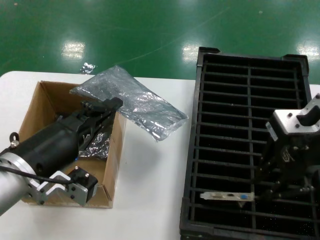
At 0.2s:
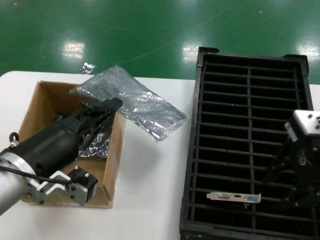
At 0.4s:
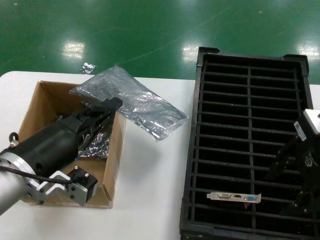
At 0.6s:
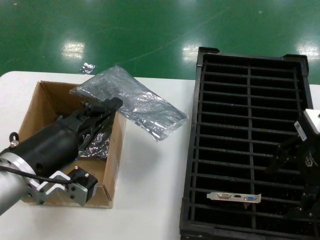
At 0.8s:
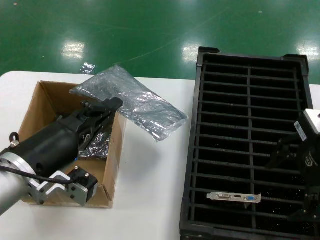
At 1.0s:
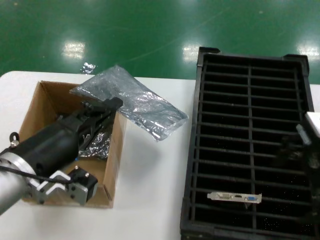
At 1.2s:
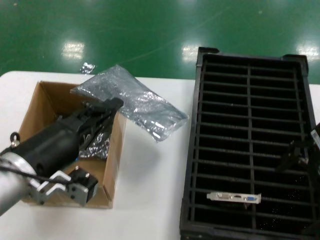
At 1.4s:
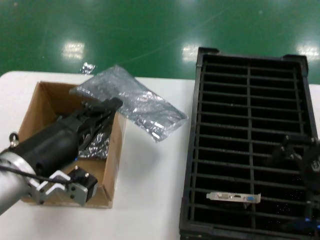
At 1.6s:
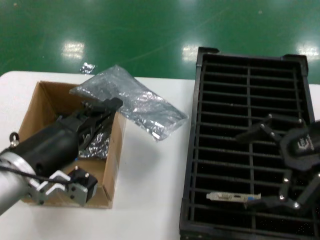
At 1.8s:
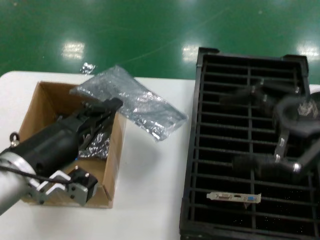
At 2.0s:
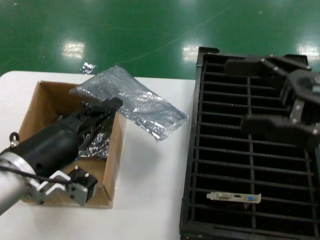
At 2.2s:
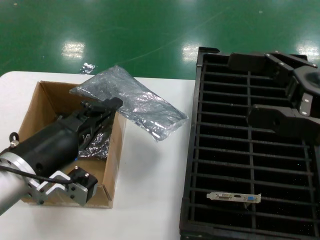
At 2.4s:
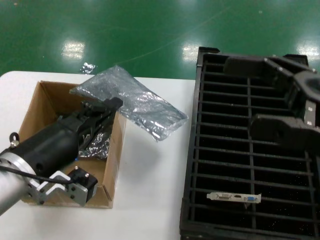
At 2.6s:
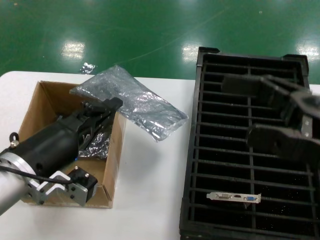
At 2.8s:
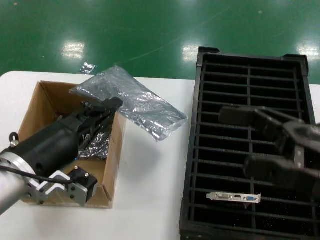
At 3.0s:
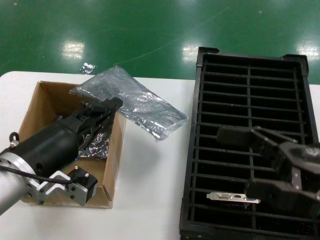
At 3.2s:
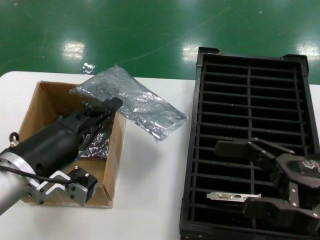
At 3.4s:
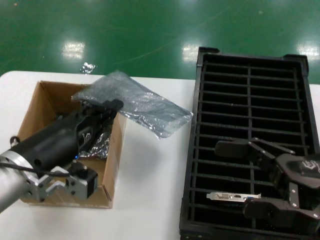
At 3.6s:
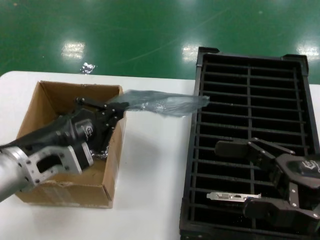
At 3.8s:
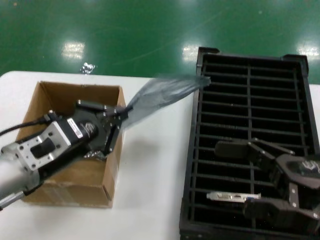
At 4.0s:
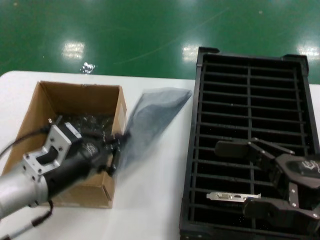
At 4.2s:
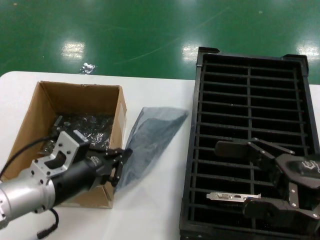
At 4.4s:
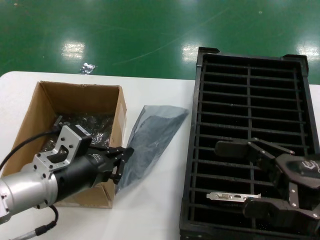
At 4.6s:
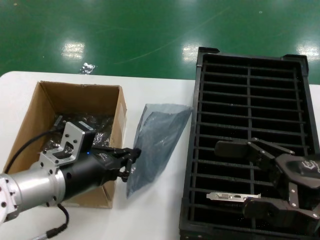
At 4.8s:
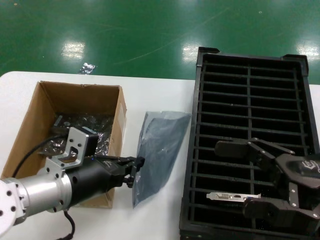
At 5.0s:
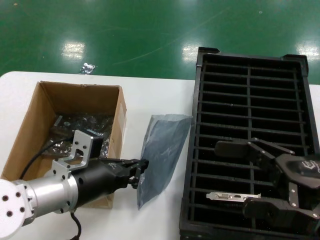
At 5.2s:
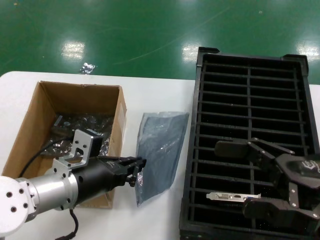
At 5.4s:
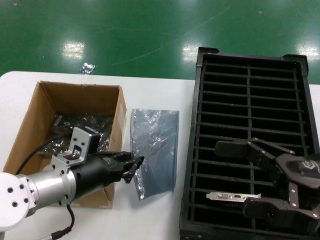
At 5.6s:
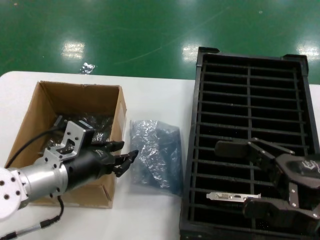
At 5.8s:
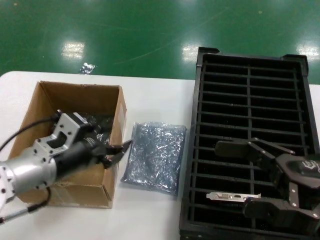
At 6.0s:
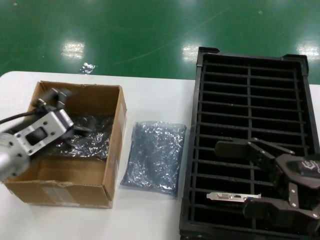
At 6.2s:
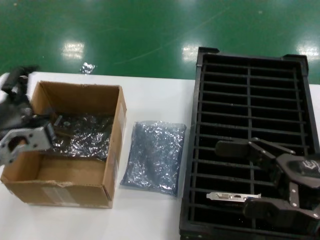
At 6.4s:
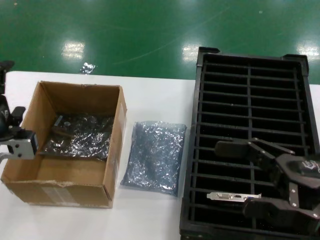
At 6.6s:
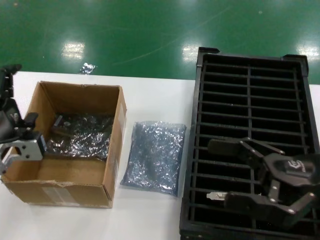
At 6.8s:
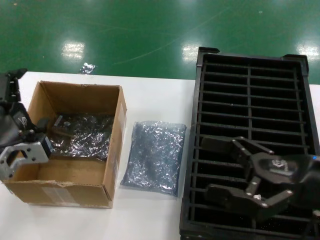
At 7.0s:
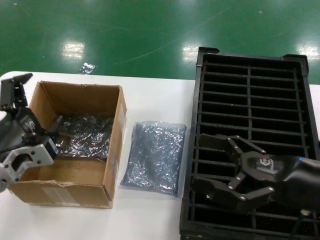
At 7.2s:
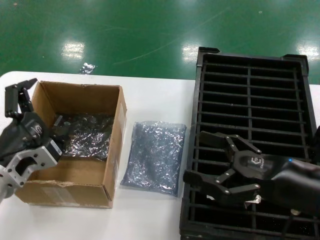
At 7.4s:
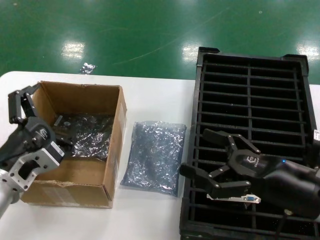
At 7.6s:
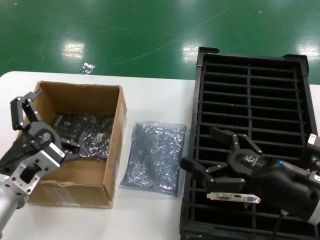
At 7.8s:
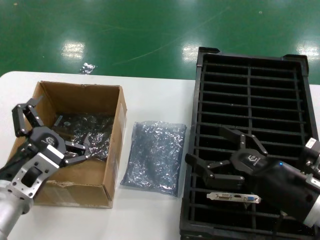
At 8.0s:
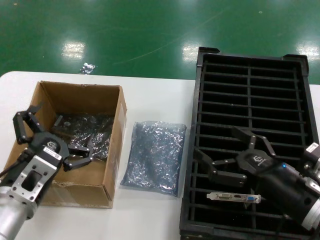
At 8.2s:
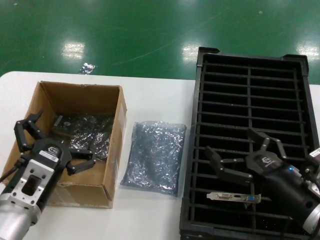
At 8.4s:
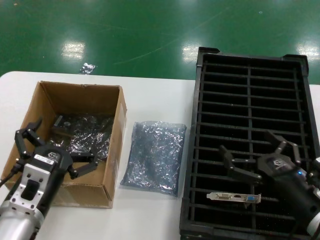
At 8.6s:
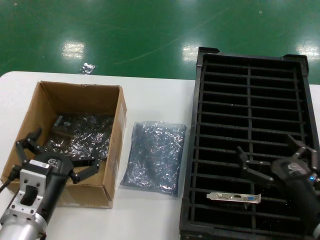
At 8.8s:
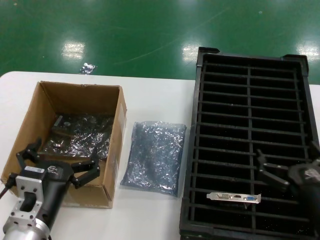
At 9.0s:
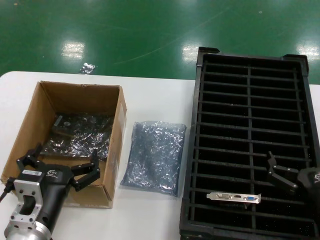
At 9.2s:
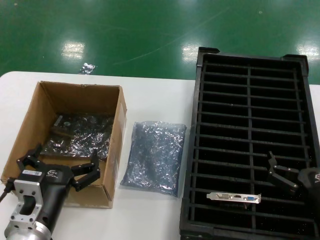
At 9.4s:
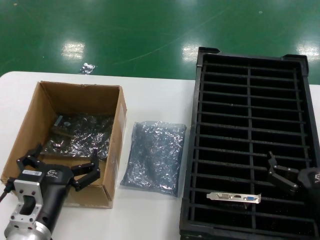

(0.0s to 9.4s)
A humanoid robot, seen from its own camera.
Task of the whole recording: take out graphics card from box remove packaging put into black container.
Step, 0.2s - 5.4s: Place the down the bag.
0.0s - 1.6s: The right hand goes approximately 10 cm to the right.
1.6s - 3.2s: The right hand shifts about 15 cm downward.
4.8s - 6.2s: The left hand heads to the left, covering some 5 cm.
6.2s - 7.8s: The right hand heads downward and to the left, covering about 10 cm. The left hand shifts approximately 10 cm downward.
7.8s - 9.4s: The right hand is displaced backward and downward by some 10 cm, while the left hand heads downward, covering about 5 cm.

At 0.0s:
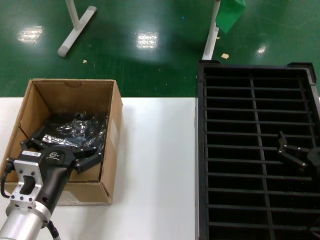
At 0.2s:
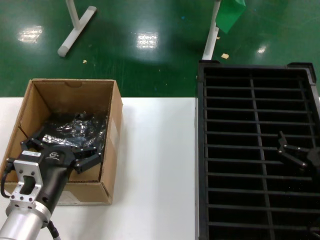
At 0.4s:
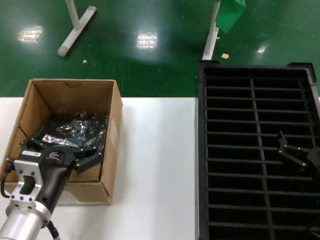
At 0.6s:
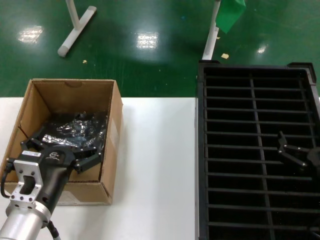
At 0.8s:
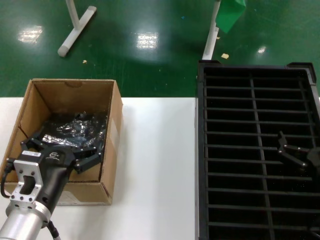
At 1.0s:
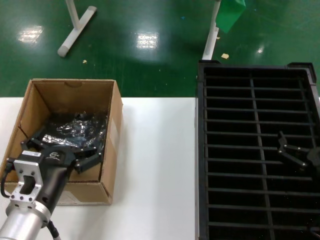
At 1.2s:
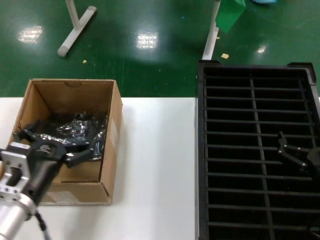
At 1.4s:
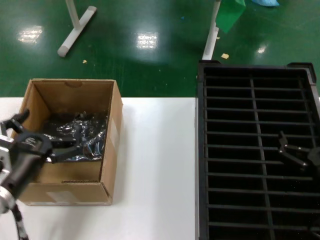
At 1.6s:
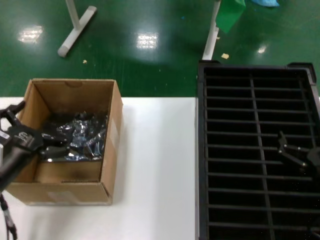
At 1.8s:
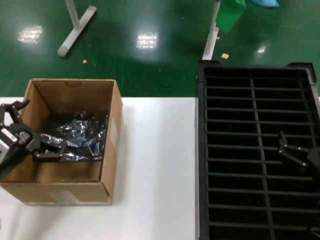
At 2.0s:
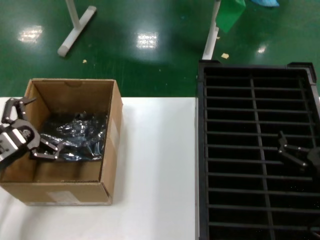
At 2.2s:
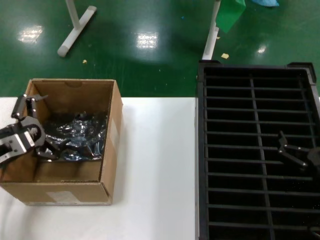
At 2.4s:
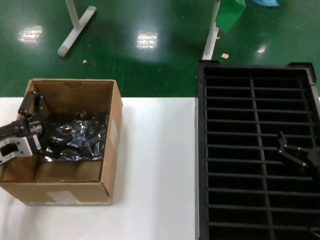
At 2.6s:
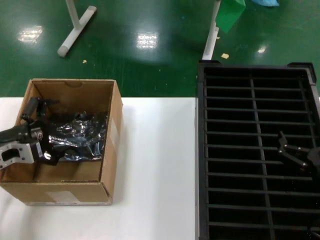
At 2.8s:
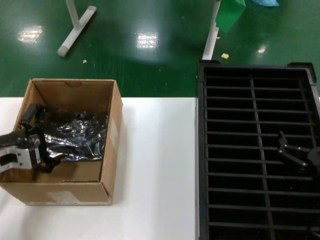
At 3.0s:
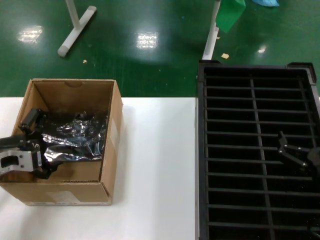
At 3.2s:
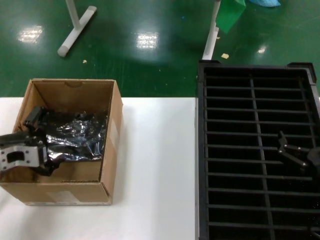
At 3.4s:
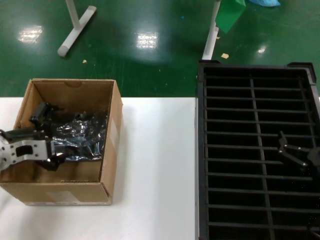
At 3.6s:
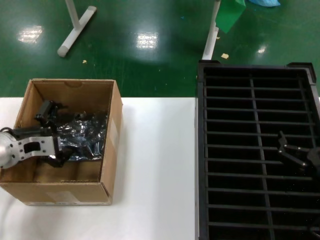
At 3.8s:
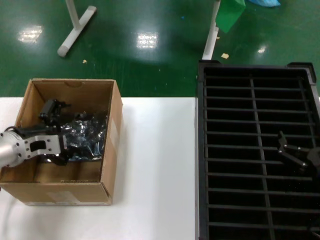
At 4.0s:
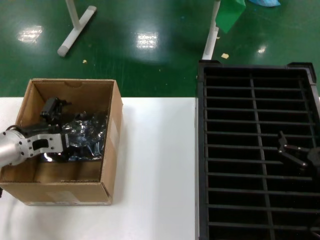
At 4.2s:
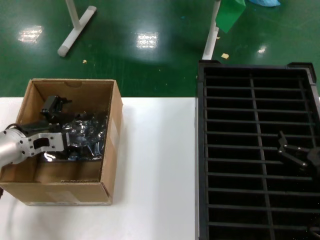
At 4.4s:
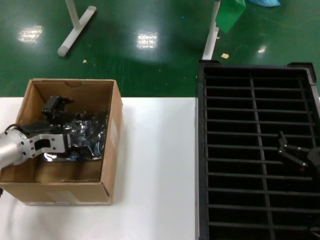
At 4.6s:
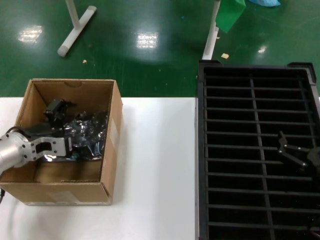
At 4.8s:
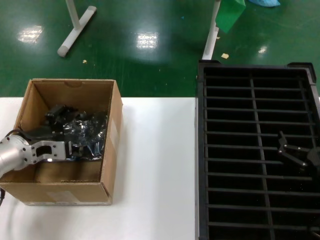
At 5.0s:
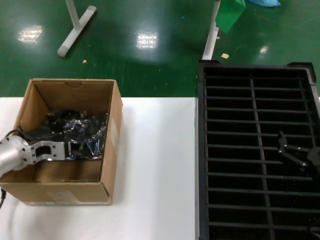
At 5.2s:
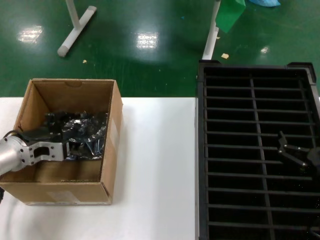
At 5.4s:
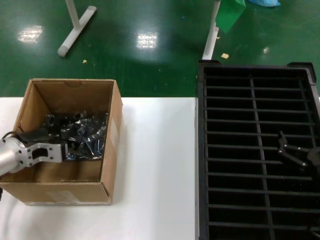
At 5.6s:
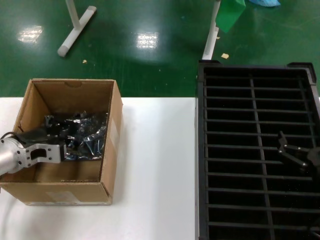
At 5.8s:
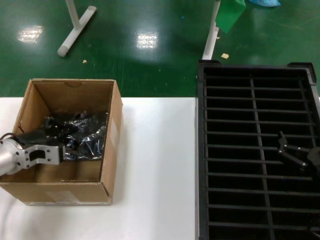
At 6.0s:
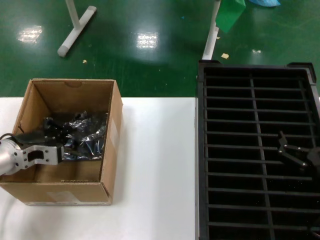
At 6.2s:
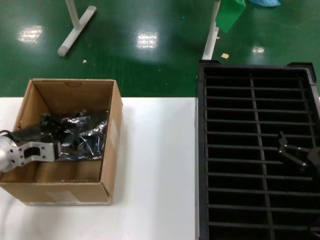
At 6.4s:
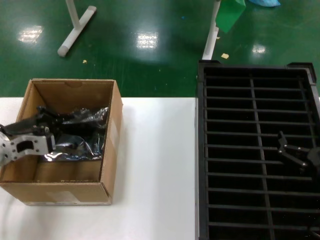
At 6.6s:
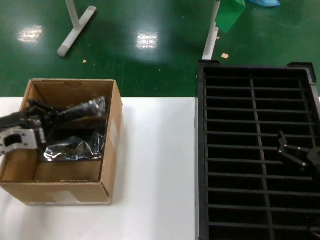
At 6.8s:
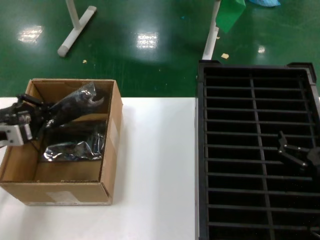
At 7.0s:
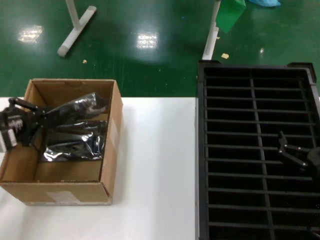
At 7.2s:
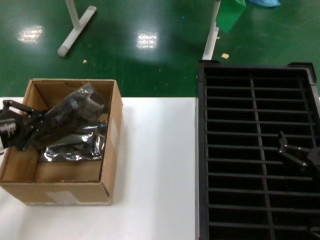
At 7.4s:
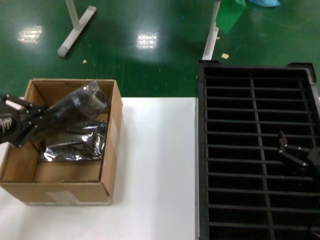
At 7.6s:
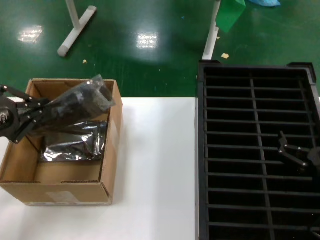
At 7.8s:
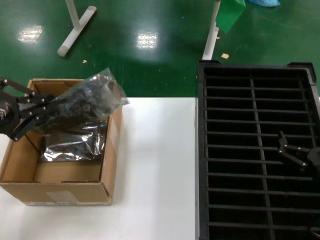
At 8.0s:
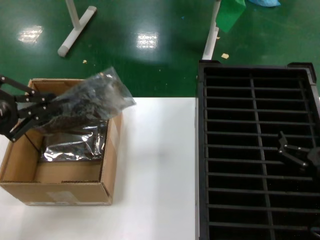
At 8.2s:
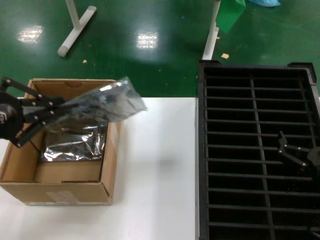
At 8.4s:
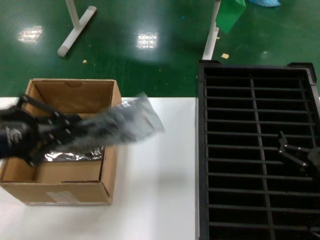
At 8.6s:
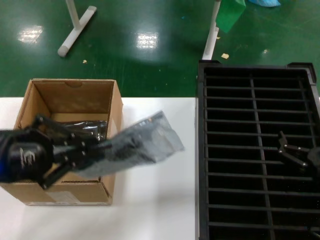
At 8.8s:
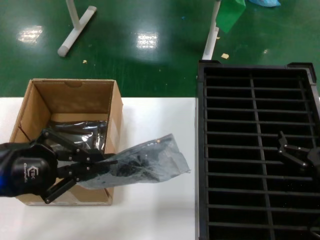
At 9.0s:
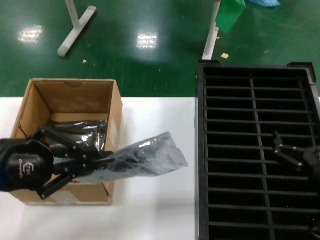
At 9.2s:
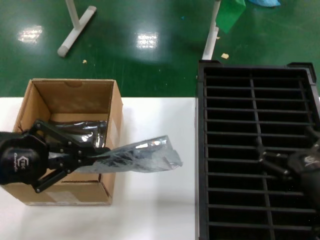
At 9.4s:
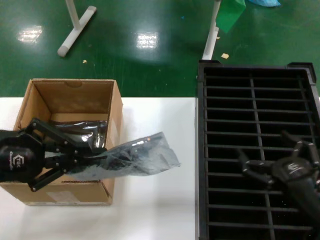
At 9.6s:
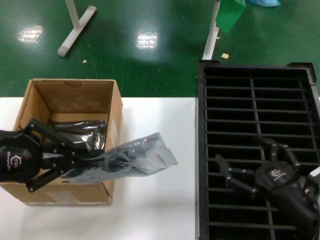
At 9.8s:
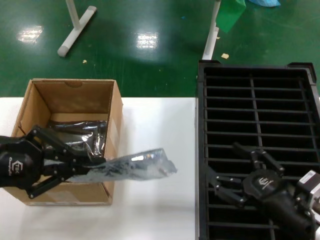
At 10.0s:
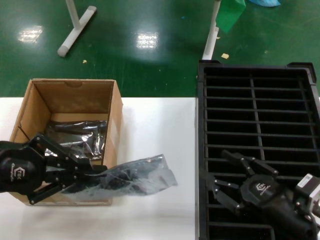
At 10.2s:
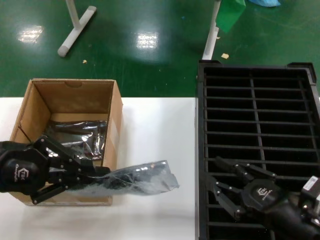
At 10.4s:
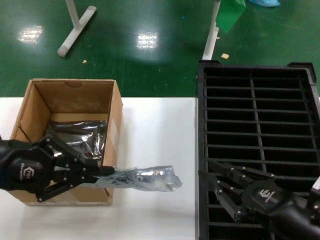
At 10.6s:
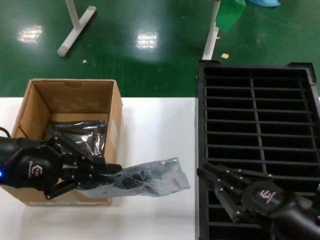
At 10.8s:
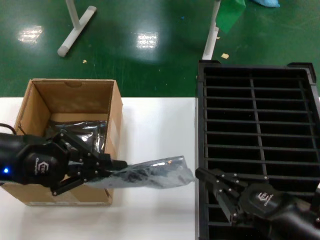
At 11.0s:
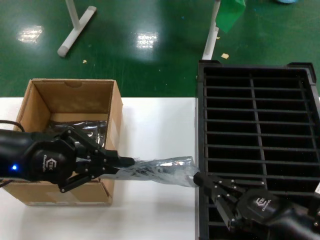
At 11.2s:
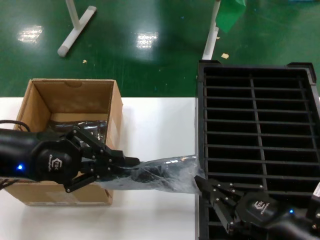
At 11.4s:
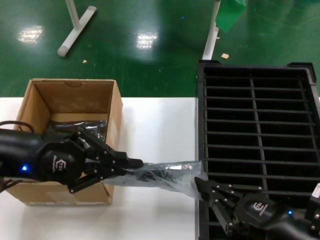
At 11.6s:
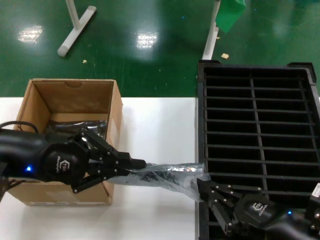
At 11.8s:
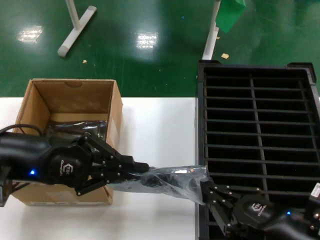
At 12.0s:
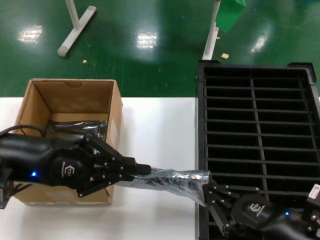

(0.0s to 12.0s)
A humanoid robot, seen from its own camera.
Task of the whole recording: take out graphics card from box remove packaging put into black container.
Step, 0.0s - 5.6s: Grasp the bag.
Step, 5.8s - 8.6s: Lift the bag.
0.0s - 1.6s: The left hand moves to the left, approximately 10 cm.
1.6s - 3.0s: The left hand travels forward by some 10 cm.
3.0s - 4.4s: The left hand shifts approximately 5 cm to the right.
4.4s - 6.0s: The hands move only a little.
6.0s - 7.6s: The left hand heads upward, backward and to the left, covering approximately 20 cm.
7.6s - 9.0s: The left hand ends up approximately 5 cm from where it was.
9.0s - 10.4s: The left hand travels forward by roughly 5 cm, while the right hand changes place by about 5 cm.
10.4s - 12.0s: The left hand heads to the right, covering some 5 cm.

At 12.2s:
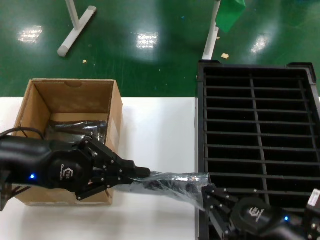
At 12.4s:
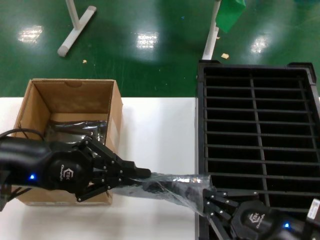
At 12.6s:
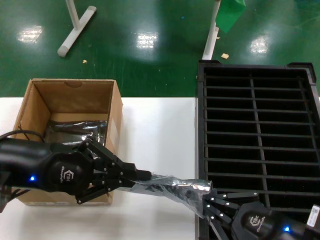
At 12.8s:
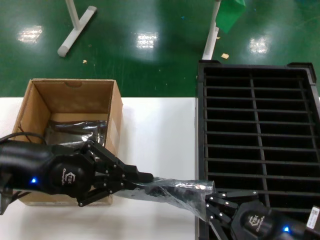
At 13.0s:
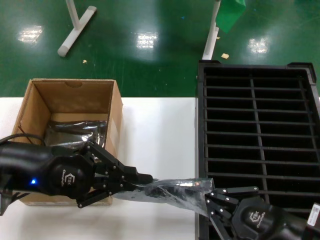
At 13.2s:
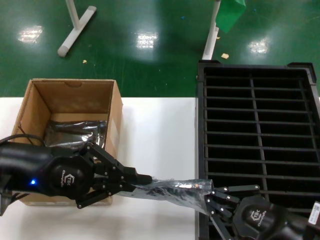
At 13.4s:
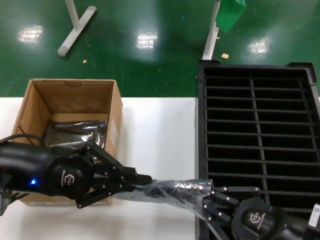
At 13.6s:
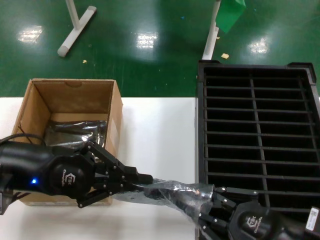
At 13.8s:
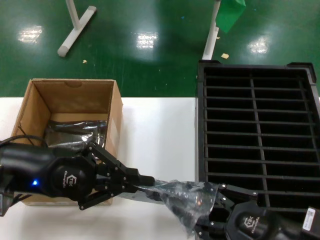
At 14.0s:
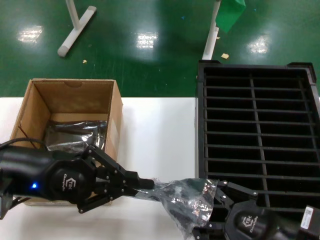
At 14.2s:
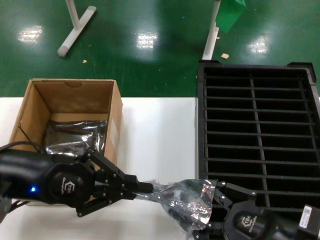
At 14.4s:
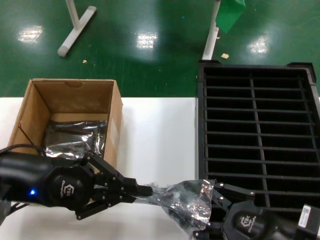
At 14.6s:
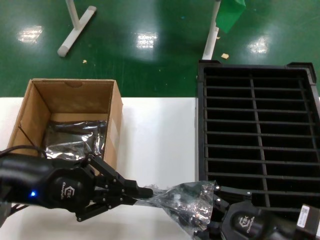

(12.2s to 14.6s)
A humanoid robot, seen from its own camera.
Task of the whole recording: take out graphics card from box remove packaging put into black container.
12.2s - 14.6s: There are only small adjustments of the hands.
